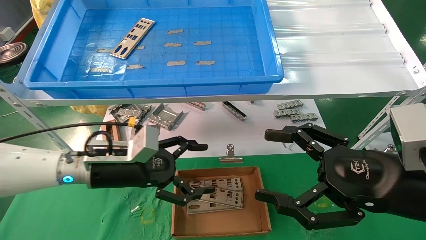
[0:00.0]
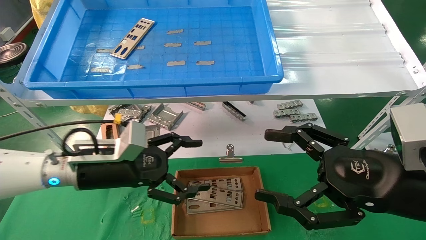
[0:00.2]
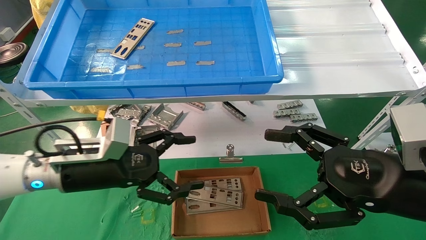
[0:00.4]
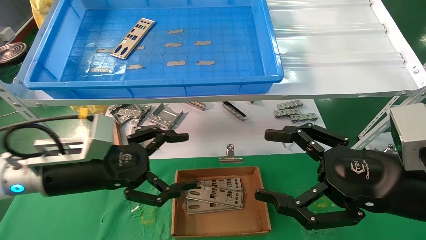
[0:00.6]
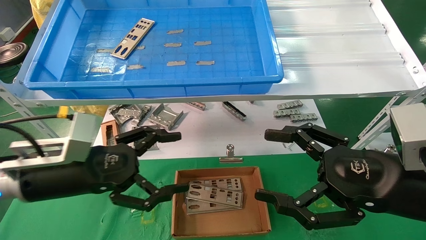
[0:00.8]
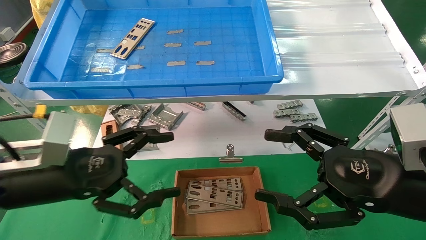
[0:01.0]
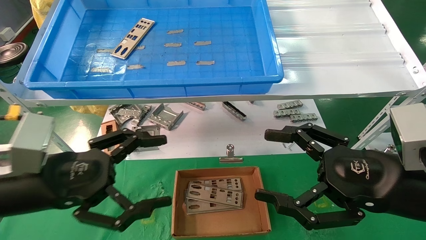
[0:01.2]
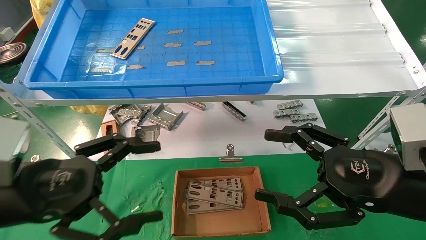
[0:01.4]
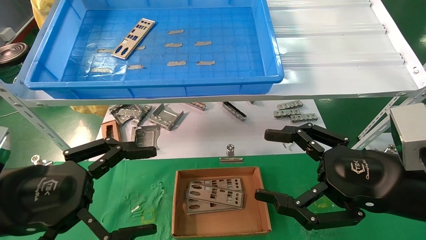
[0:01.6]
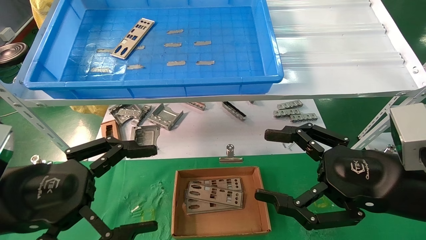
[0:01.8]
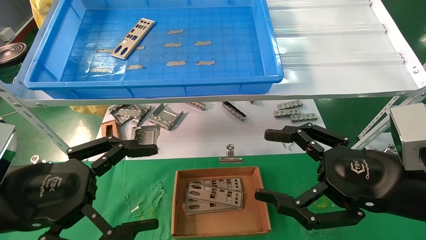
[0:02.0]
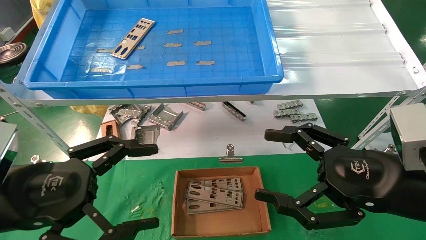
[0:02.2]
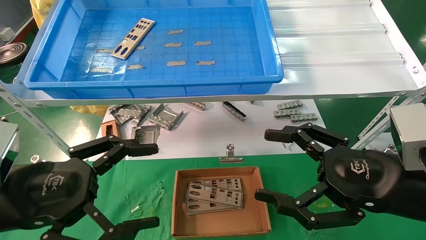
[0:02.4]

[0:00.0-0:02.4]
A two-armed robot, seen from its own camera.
Task of the whole recording: pick up the parts on the tray and put them in the cardboard box.
0:00.0 to 0:01.2: The left gripper heads backward and to the left, covering about 15 cm.
0:01.2 to 0:02.4: There are only small adjustments of the grippers.

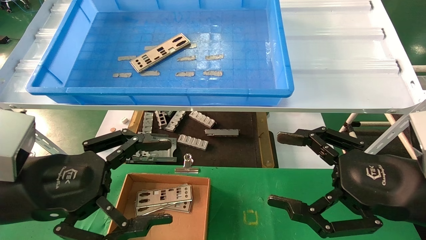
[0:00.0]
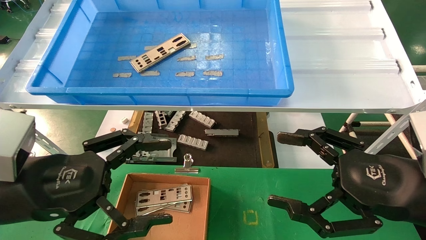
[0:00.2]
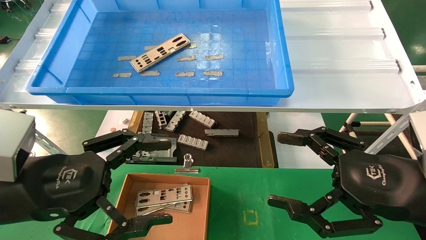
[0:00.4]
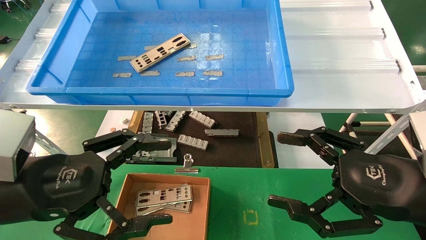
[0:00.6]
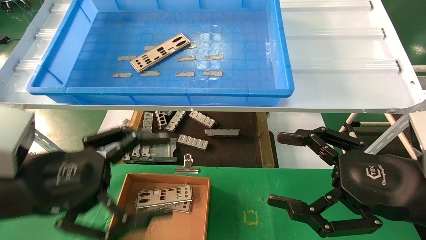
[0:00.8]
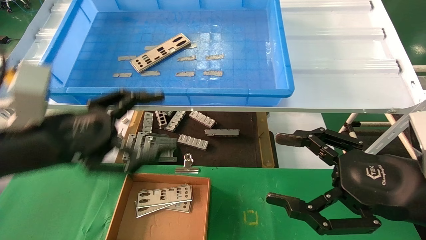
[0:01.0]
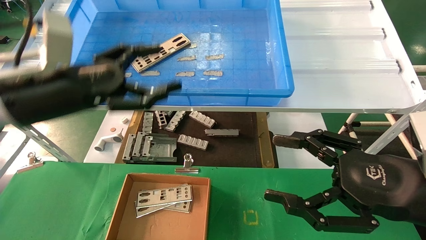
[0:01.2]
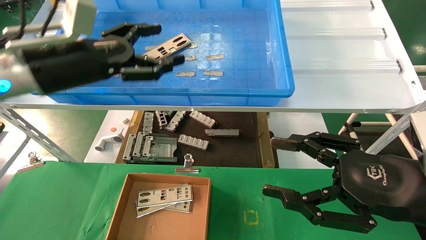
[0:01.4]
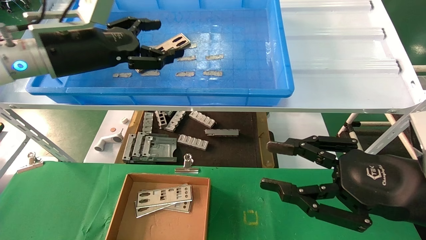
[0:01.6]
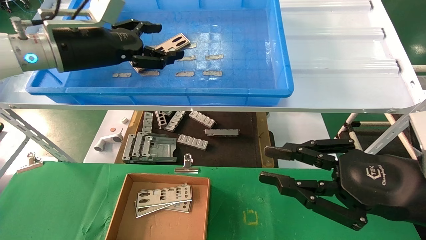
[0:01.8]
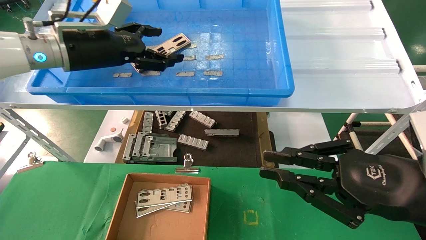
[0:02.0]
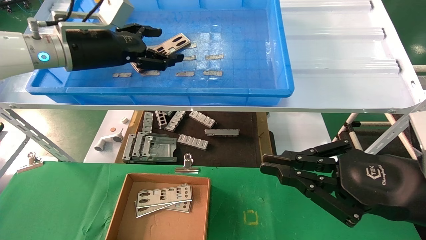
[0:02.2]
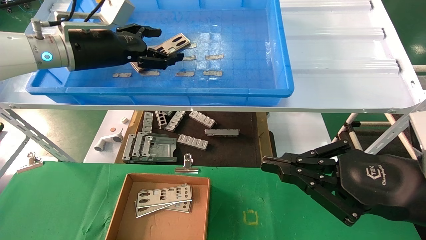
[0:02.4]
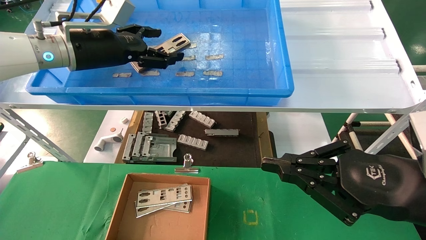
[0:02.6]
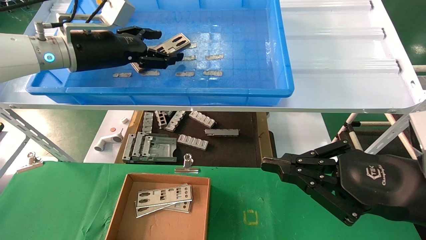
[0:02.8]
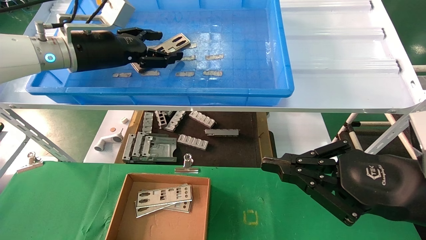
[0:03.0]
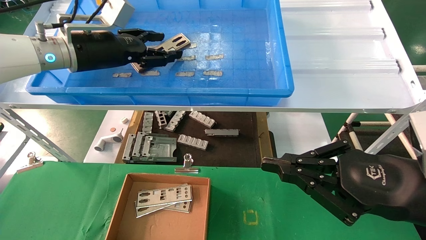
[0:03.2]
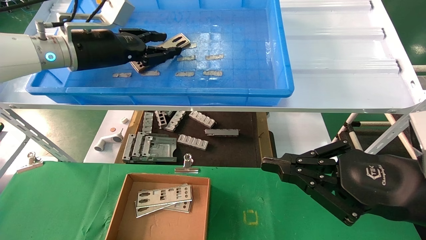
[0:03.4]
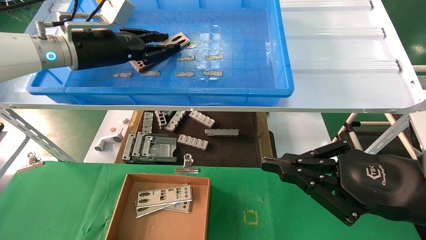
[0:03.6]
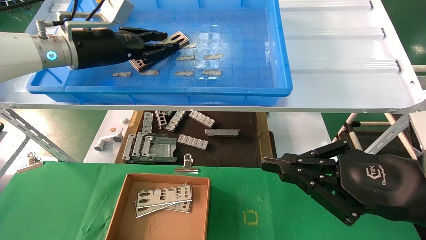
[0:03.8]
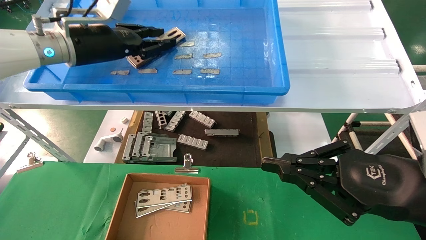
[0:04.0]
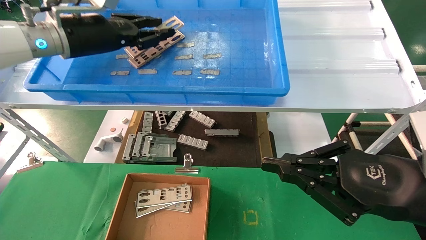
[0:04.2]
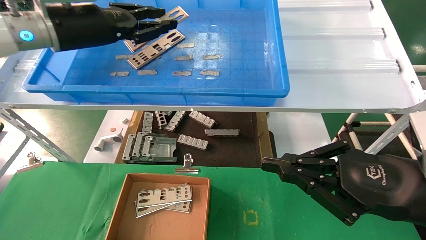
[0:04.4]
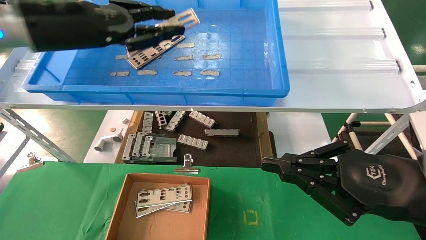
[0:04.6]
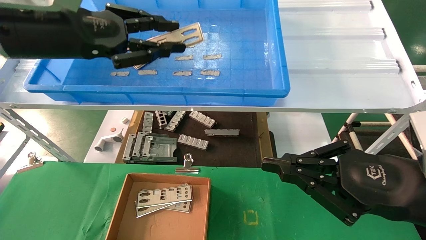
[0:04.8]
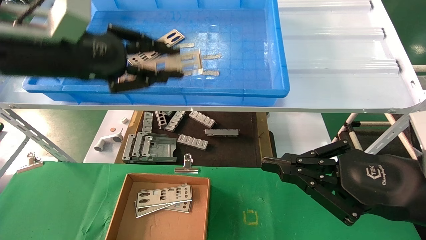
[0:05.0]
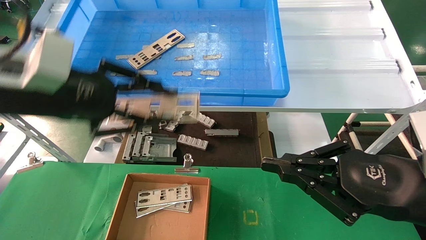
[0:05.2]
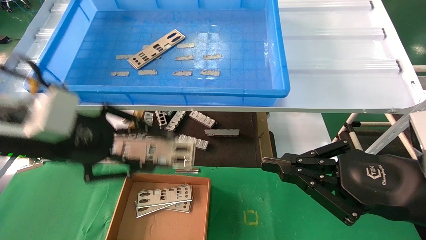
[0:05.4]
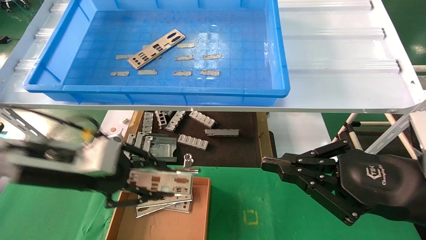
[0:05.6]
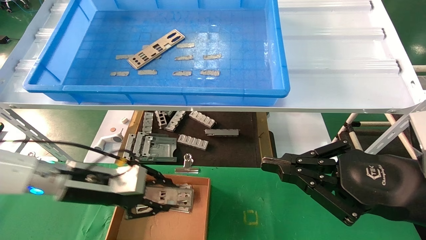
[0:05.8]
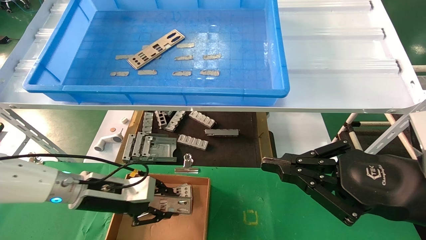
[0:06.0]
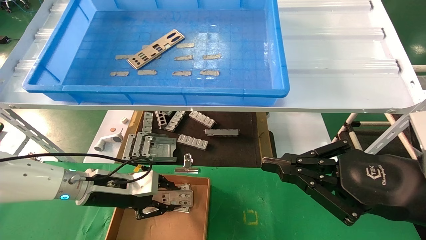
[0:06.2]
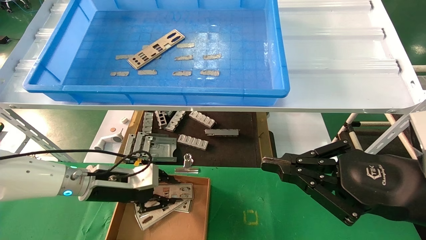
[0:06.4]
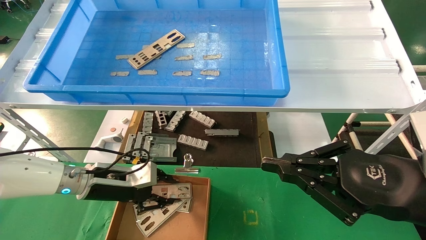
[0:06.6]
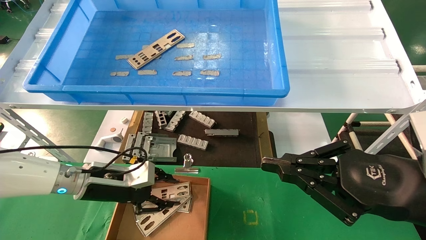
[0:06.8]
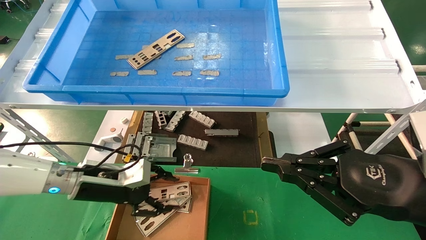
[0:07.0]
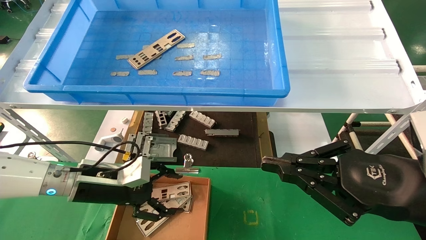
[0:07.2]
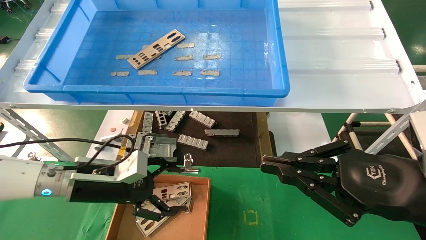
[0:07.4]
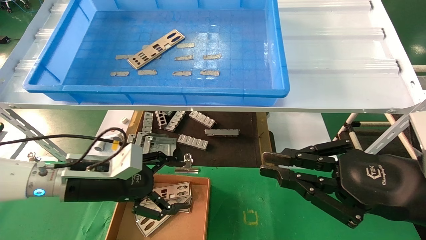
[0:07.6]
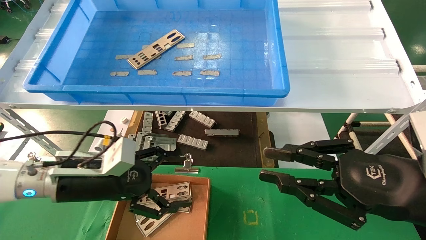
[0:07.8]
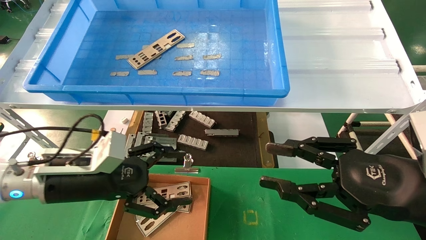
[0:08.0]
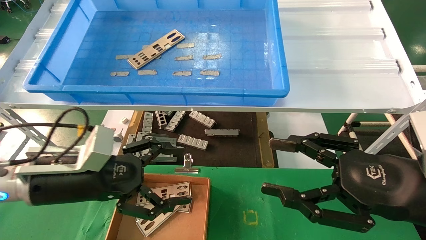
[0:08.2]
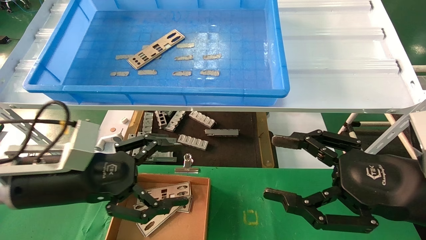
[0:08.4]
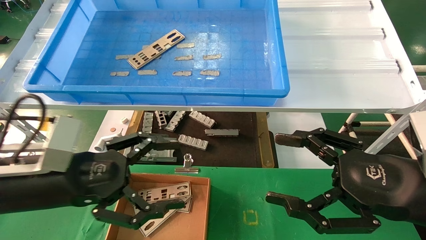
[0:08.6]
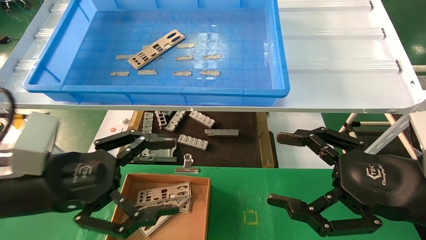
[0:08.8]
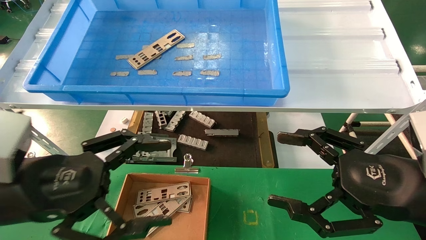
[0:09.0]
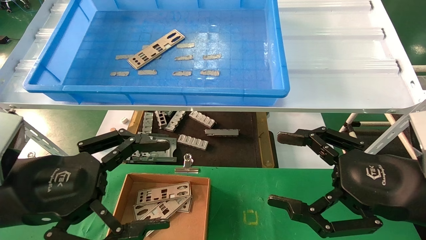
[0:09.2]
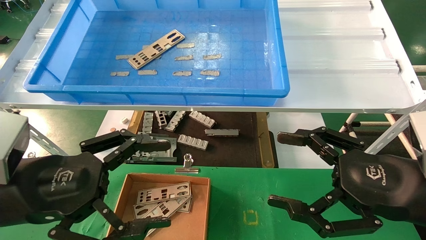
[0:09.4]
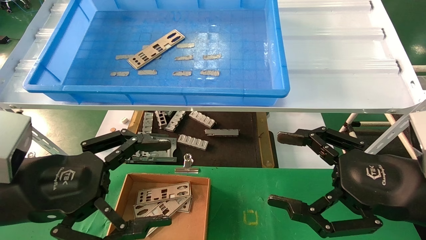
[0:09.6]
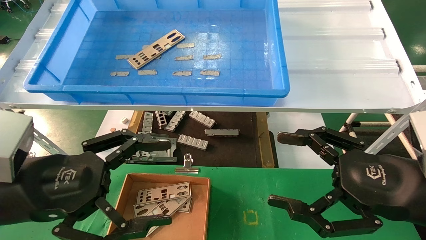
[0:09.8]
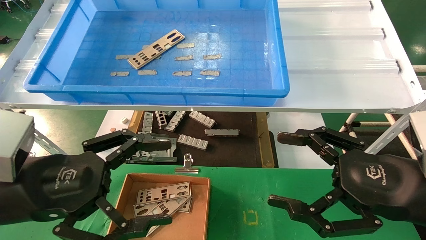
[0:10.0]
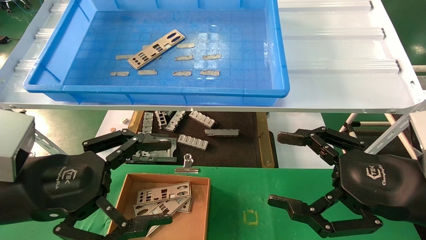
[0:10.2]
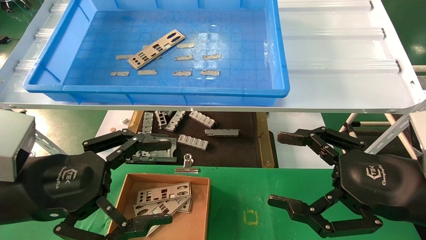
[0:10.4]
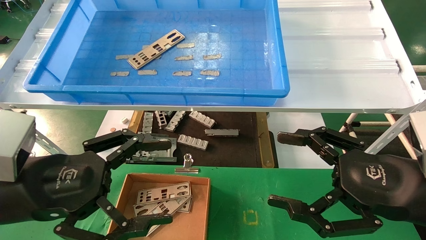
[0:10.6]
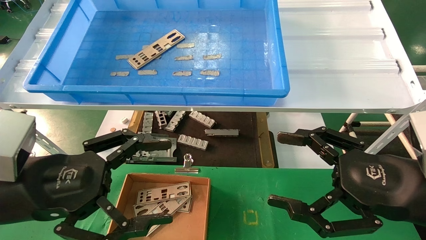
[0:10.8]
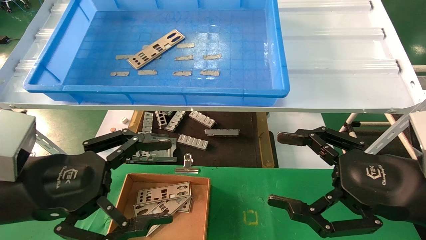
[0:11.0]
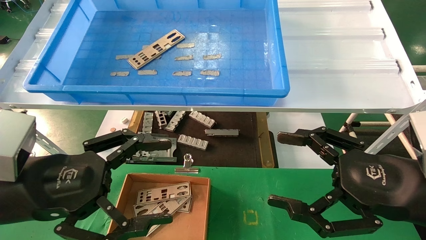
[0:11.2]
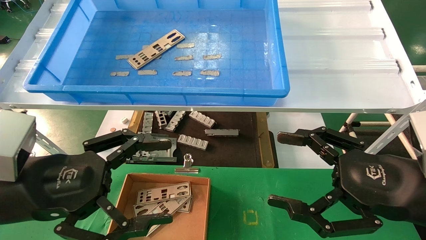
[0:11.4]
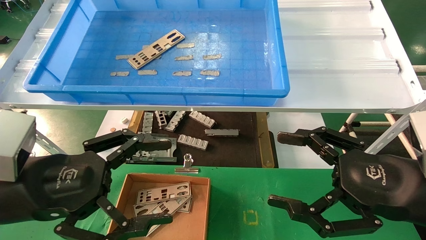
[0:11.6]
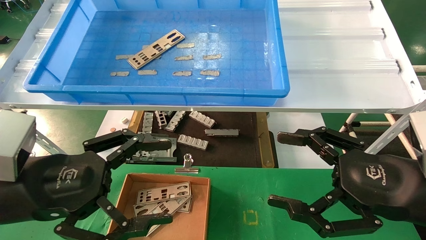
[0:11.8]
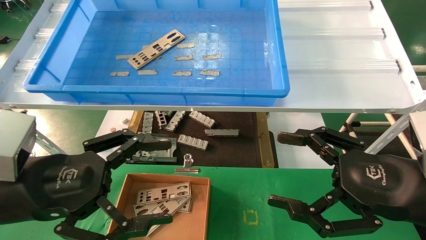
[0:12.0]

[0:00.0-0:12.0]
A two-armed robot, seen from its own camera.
Task of the whole recording: pick up the parts on the tray and put them in the cardboard box.
Step, 0:01.2 to 0:03.8: Pick up the IO bracket from the container box.
Step, 0:04.0 to 0:07.0: Place the IO bracket into the ingredient slot.
0:00.0 to 0:01.6: The left gripper travels forward and upward by some 20 cm. The right gripper closes.
0:01.6 to 0:03.0: The right gripper closes up.
0:03.0 to 0:04.4: The left gripper ends up some 5 cm from where it was, and closes up.
0:04.4 to 0:06.0: The left gripper goes some 30 cm downward.
0:06.0 to 0:07.6: The left gripper opens up.
0:07.6 to 0:09.0: The right gripper opens up. Meanwhile the left gripper moves backward and upward, some 15 cm.
0:09.0 to 0:12.0: Both grippers stay about where they are.

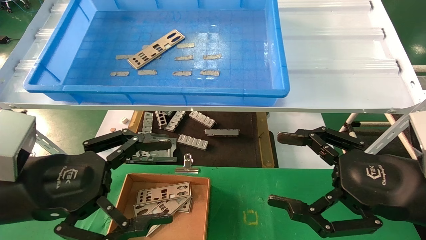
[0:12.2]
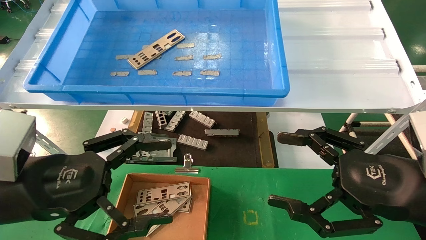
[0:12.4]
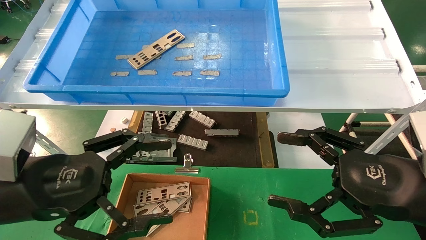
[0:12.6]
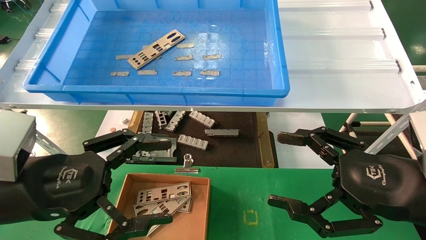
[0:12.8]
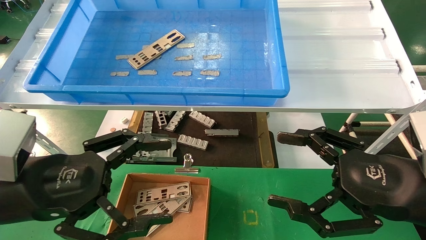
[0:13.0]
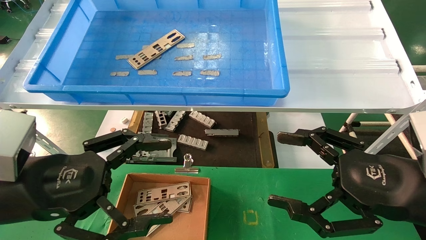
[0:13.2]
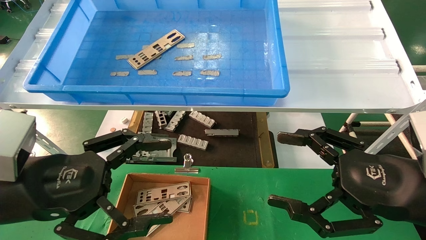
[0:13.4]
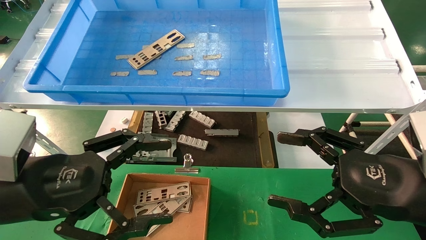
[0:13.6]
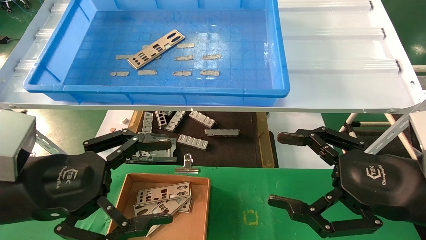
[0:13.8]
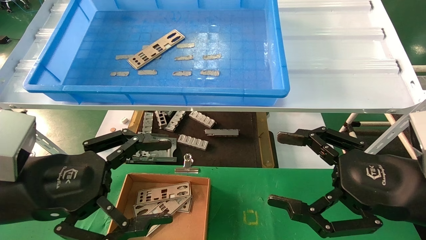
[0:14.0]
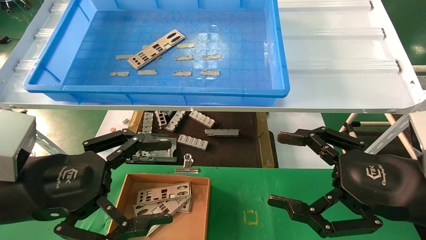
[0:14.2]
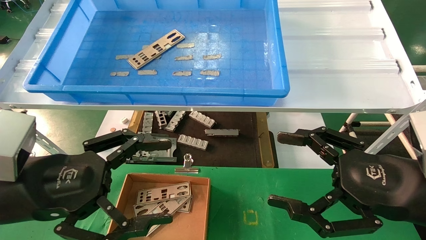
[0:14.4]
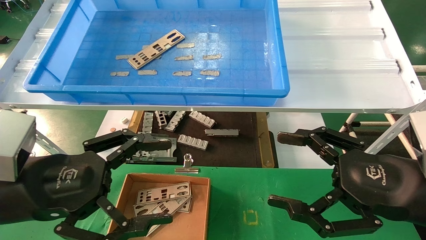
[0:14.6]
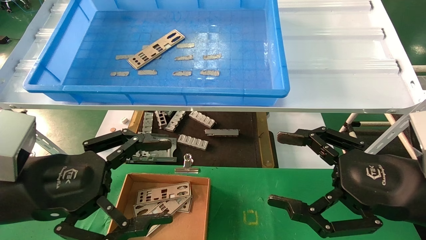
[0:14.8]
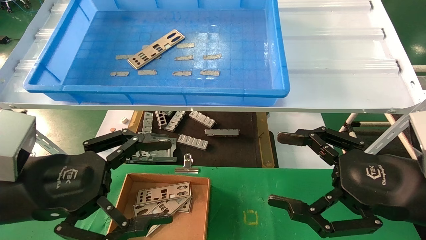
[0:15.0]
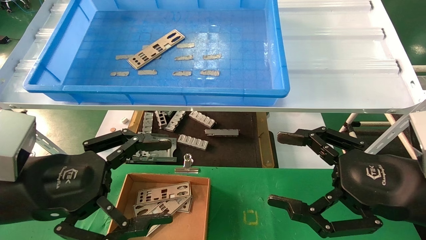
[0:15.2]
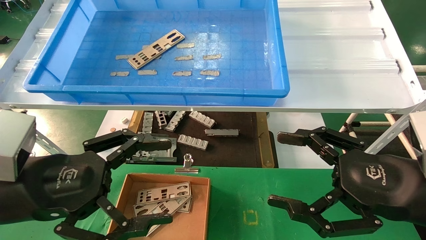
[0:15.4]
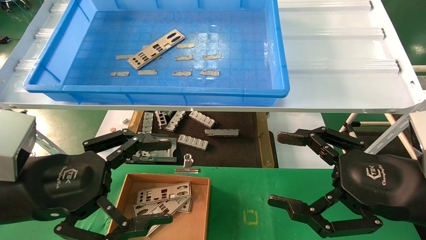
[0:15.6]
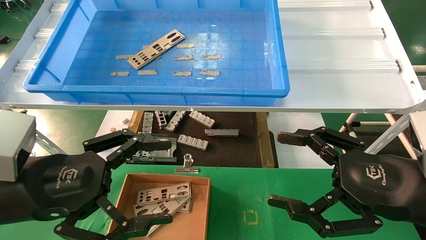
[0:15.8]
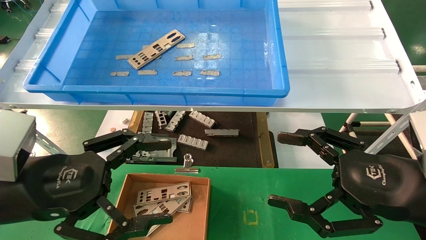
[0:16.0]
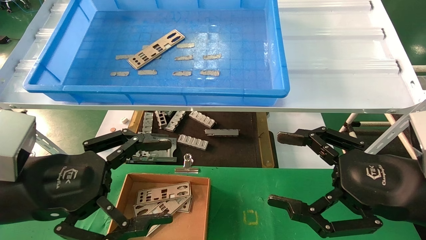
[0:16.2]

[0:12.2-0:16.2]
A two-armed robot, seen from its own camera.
Task of the whole recording: pick up the parts on the tray and put them in the cardboard box.
0:12.2 to 0:16.2: Both grippers stay put.
